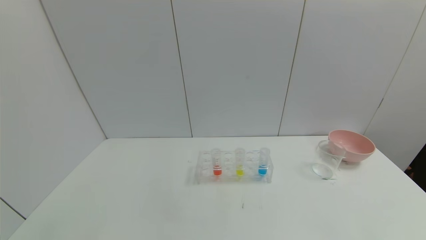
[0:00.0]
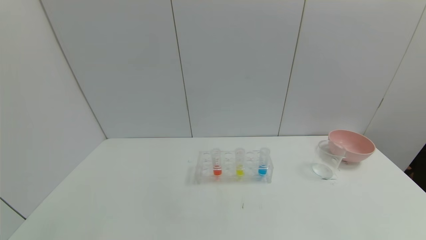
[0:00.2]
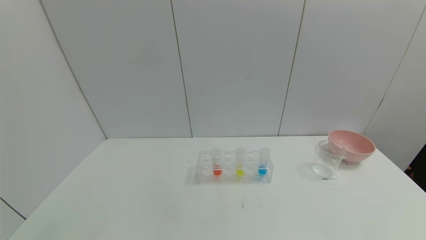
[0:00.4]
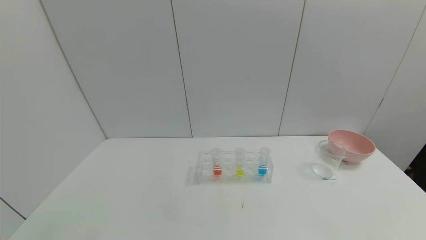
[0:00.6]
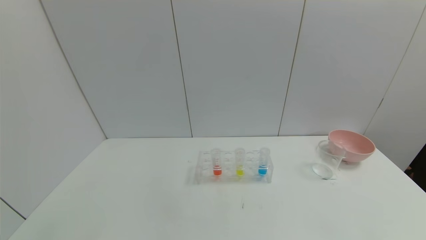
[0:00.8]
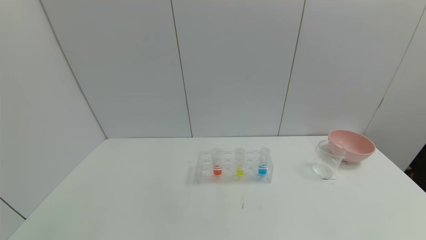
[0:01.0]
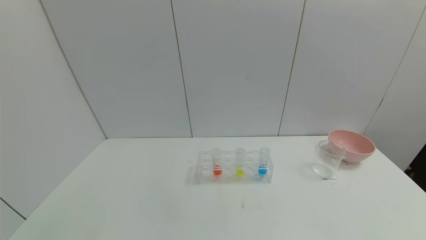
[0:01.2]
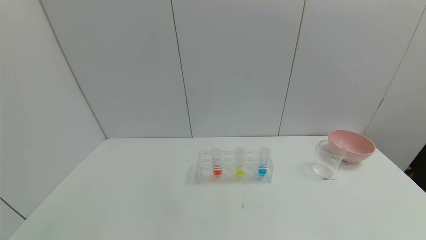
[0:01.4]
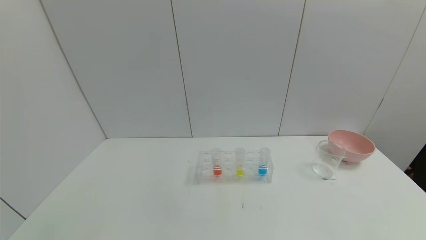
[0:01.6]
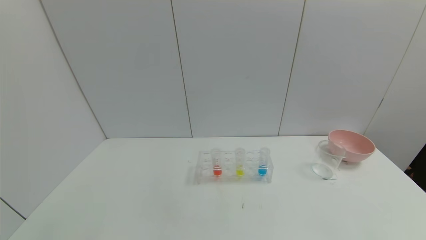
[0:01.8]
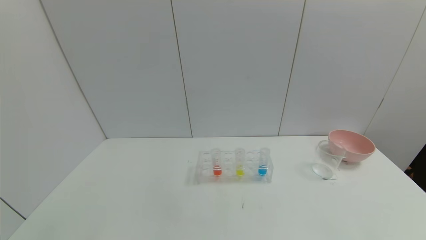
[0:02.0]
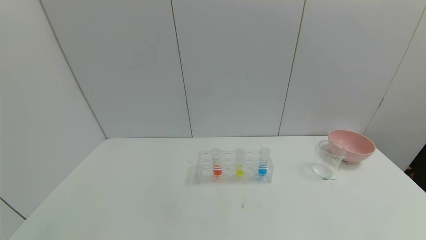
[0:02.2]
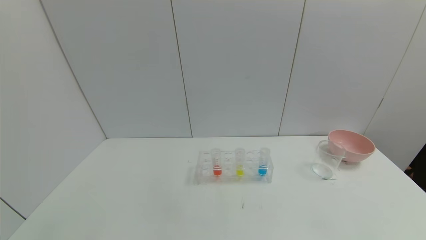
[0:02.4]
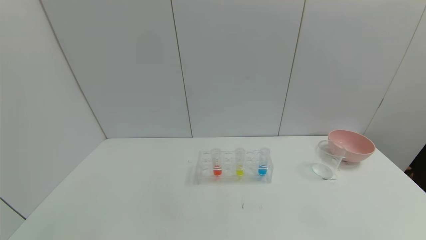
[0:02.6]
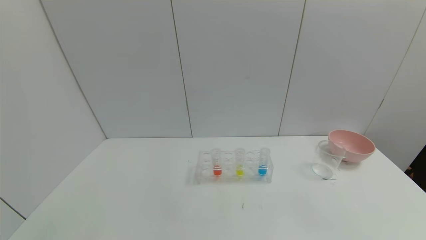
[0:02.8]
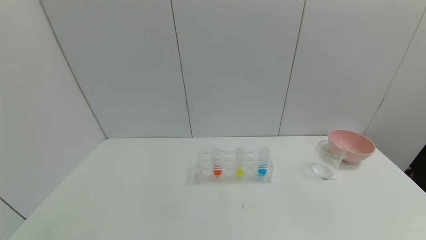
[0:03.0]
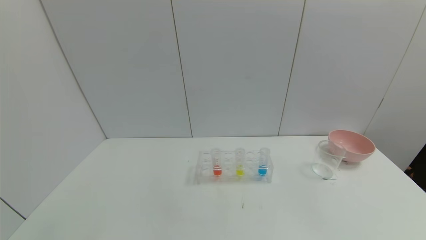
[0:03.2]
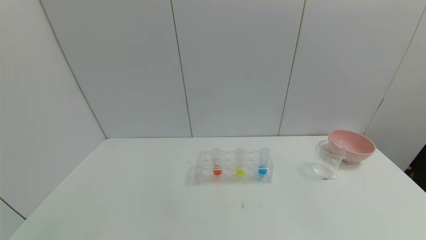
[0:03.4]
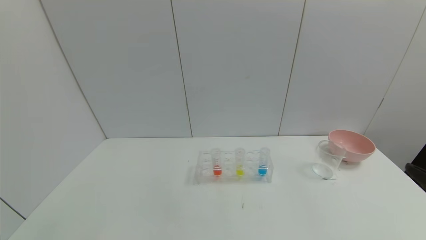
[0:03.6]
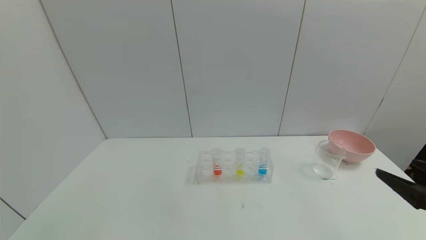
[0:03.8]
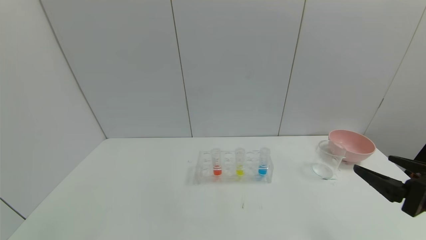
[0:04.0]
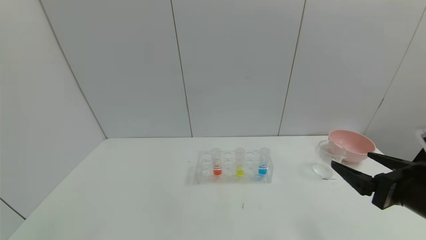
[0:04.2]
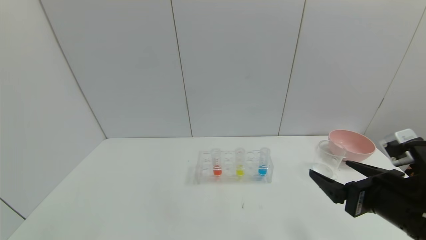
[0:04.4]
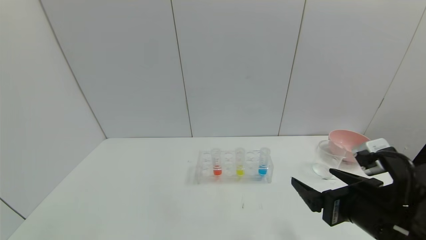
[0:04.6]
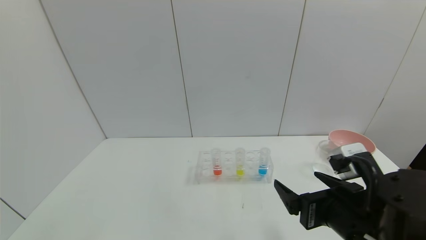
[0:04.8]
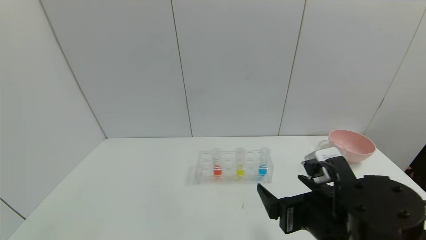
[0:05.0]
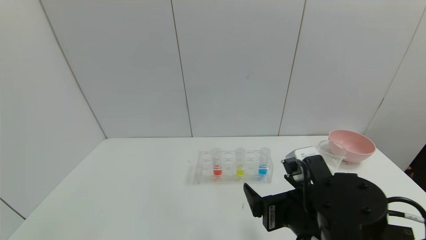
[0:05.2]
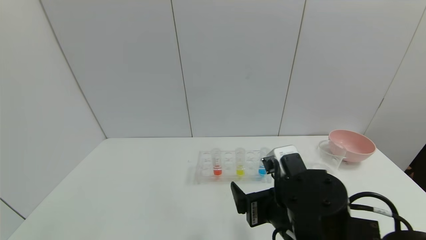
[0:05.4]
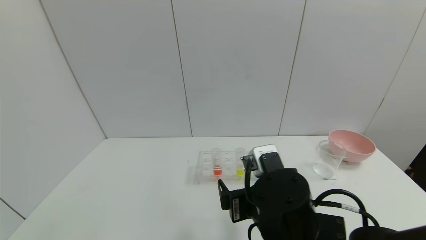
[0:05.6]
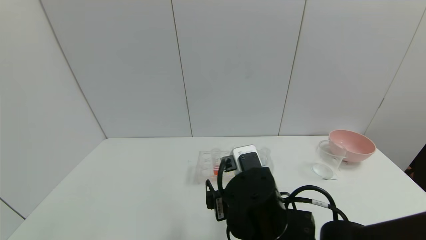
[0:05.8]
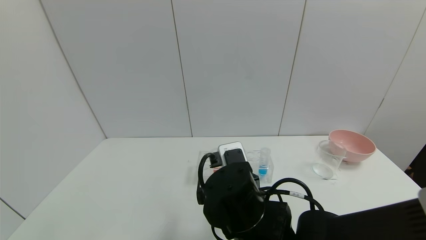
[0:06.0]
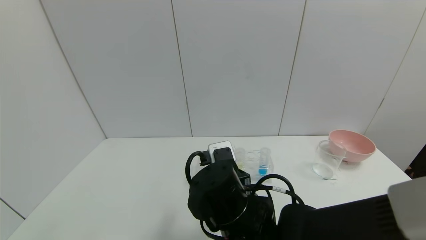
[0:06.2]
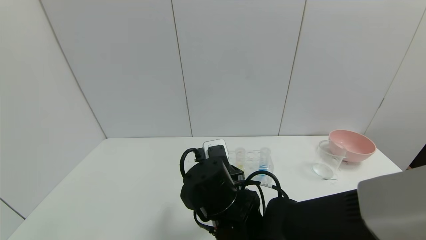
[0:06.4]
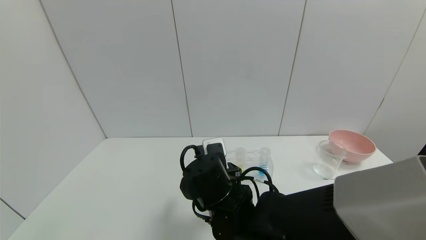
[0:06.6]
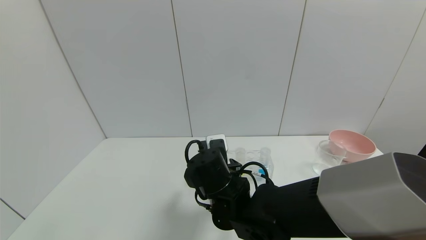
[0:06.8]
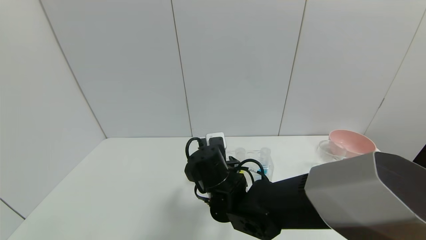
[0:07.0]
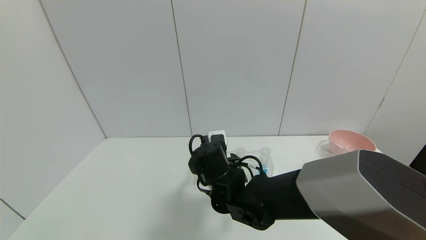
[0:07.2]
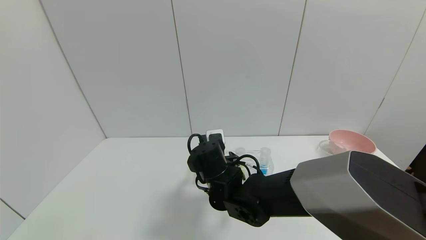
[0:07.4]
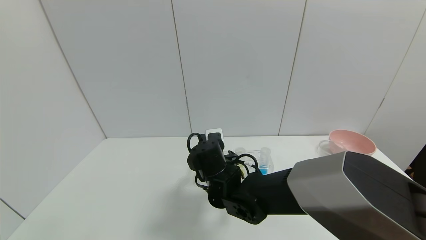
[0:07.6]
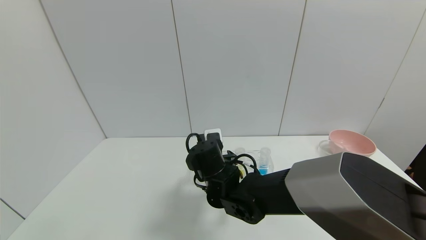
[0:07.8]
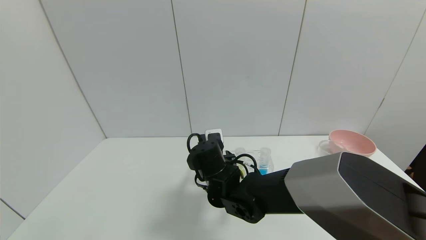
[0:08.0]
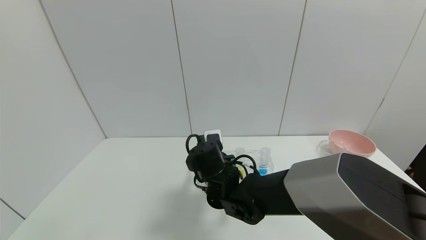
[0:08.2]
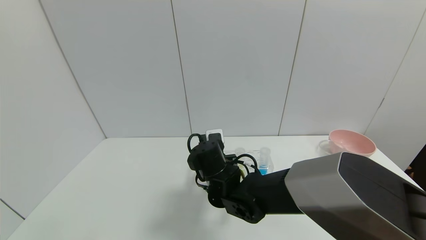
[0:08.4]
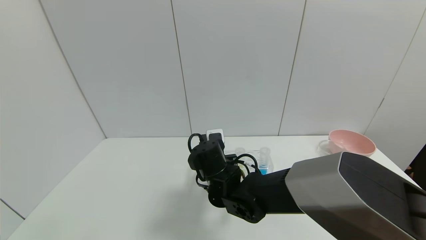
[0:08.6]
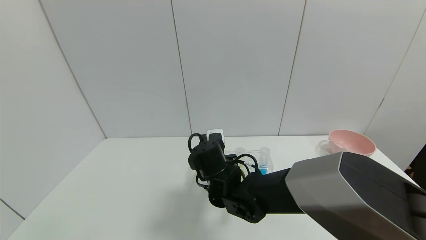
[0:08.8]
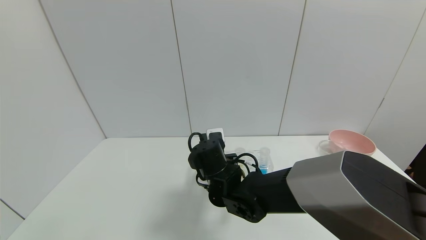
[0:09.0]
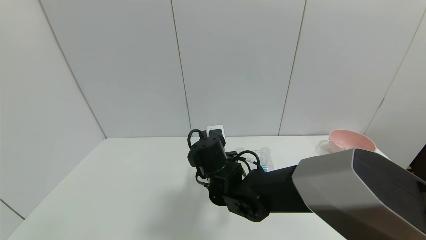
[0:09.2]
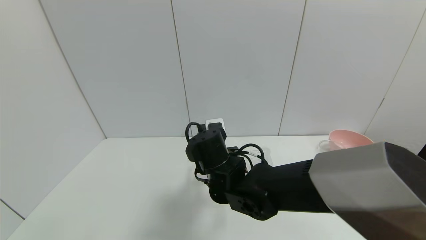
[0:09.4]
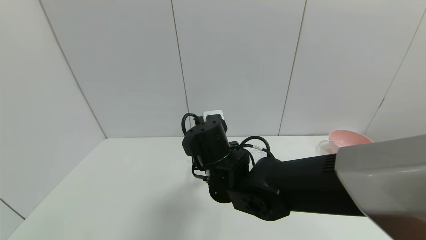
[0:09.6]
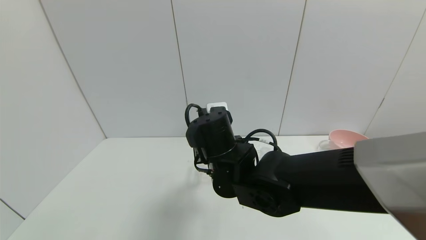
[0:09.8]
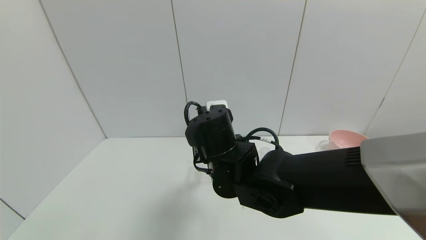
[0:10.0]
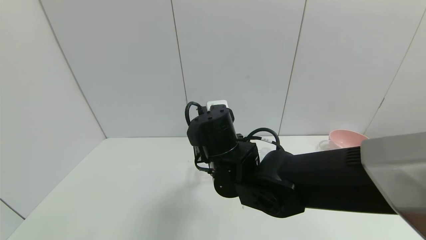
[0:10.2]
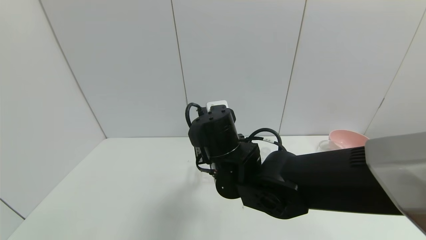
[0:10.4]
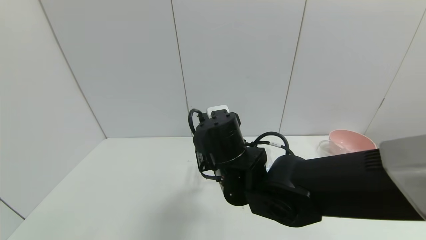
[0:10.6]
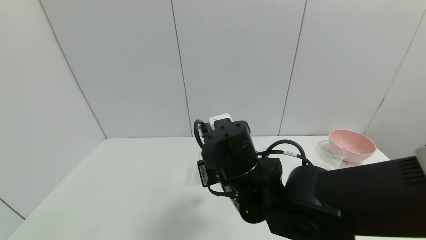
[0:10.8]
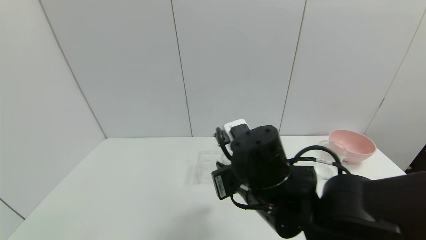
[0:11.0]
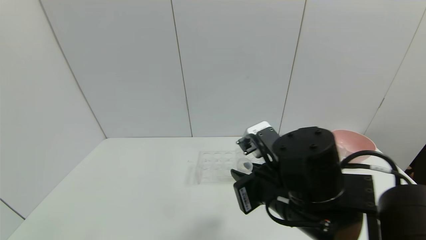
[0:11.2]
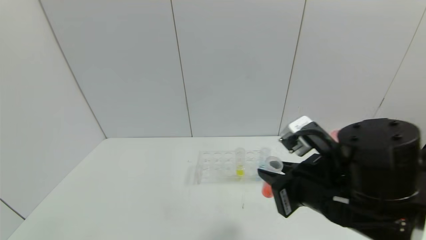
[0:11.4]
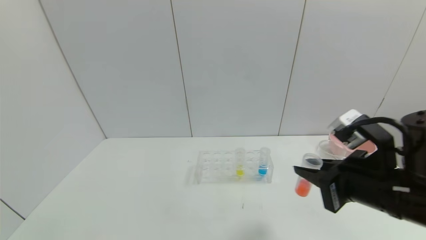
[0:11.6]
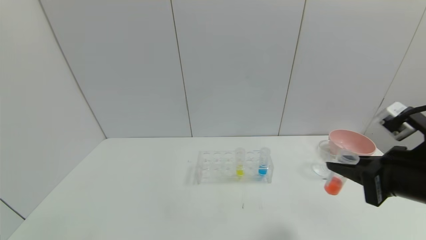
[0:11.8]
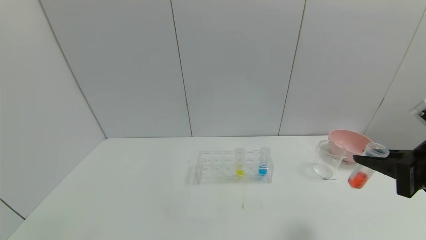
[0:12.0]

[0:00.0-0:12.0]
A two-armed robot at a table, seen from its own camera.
Task of the whole recording: pick up the test tube with red pigment and the test tube with blue pigment by grippers and pour them into the container.
Step, 0:00.0 to 0:08.4: Grasp the red reagent with the right gripper.
0:00.0 to 0:01.6: Both grippers stay about where they are.
0:03.0 to 0:04.4: The right gripper moves forward and to the left, some 20 cm.
0:04.4 to 0:06.0: The right gripper heads to the left, covering approximately 20 cm.
0:06.0 to 0:07.6: The right gripper moves forward, some 10 cm.
0:07.6 to 0:09.0: The right gripper closes.
0:09.0 to 0:10.4: The right gripper goes approximately 10 cm upward.
0:10.4 to 0:12.0: The right gripper heads to the right, covering some 30 cm.

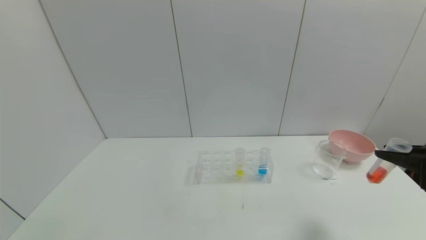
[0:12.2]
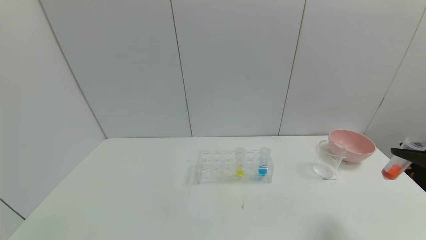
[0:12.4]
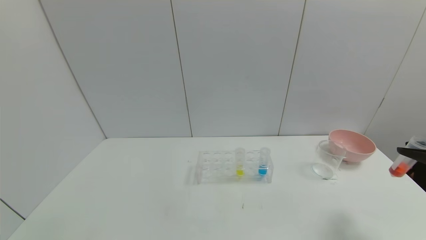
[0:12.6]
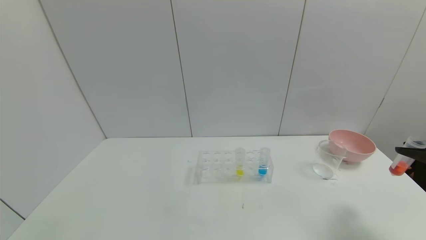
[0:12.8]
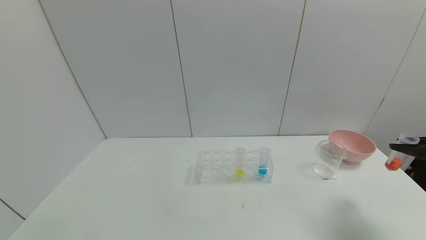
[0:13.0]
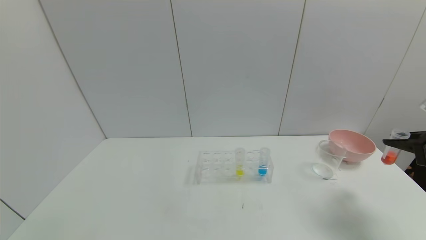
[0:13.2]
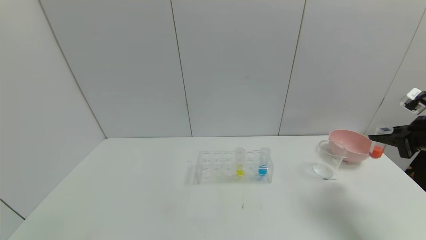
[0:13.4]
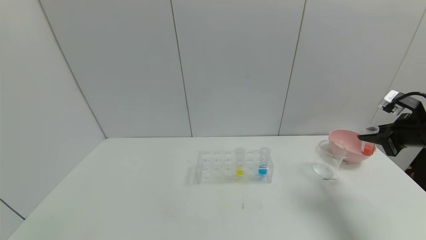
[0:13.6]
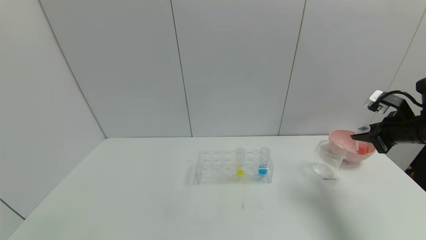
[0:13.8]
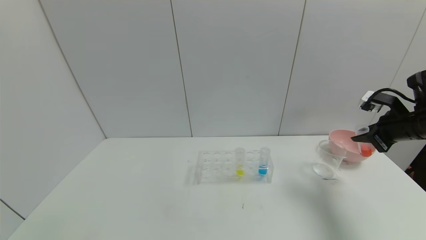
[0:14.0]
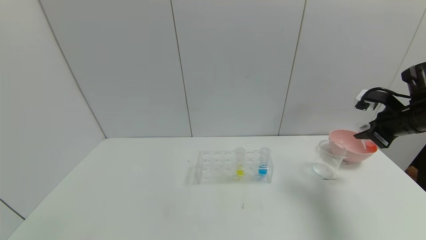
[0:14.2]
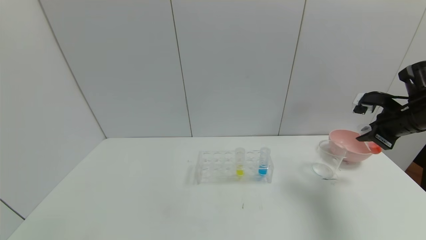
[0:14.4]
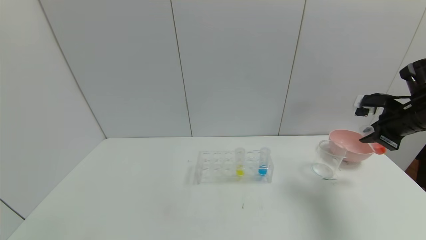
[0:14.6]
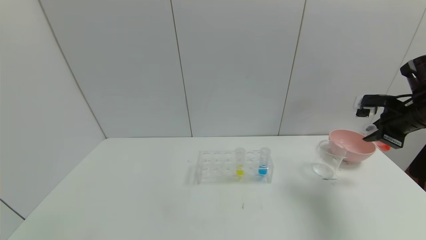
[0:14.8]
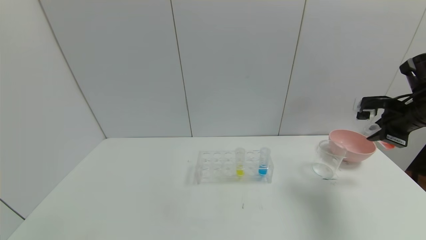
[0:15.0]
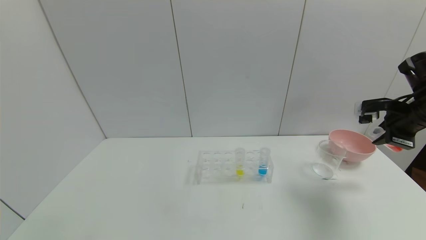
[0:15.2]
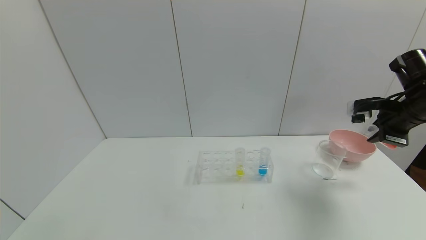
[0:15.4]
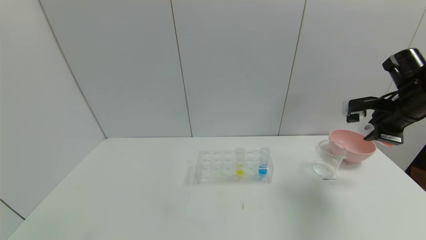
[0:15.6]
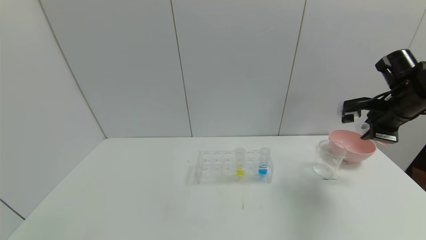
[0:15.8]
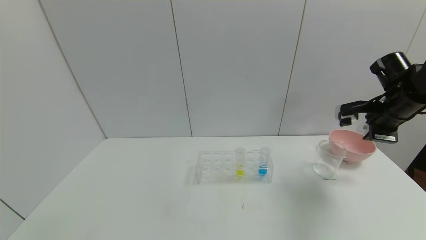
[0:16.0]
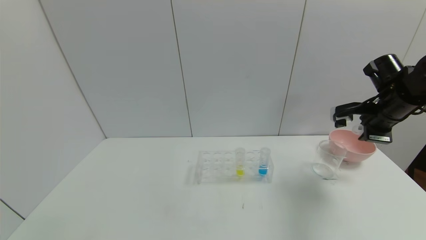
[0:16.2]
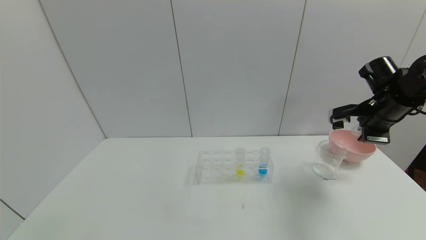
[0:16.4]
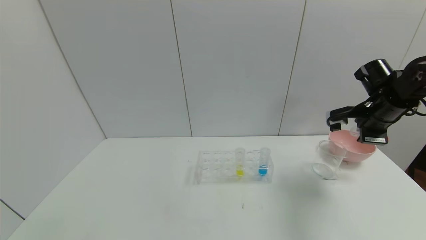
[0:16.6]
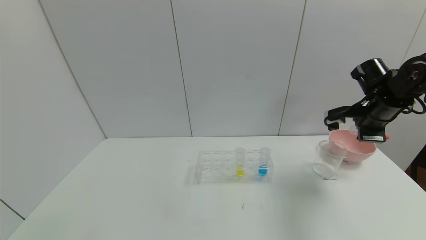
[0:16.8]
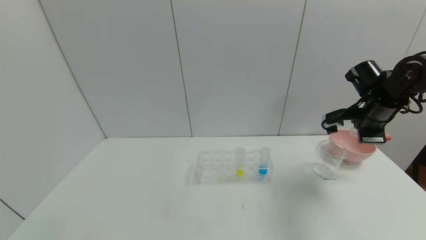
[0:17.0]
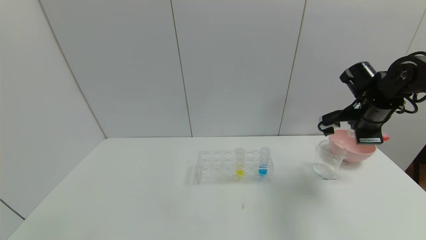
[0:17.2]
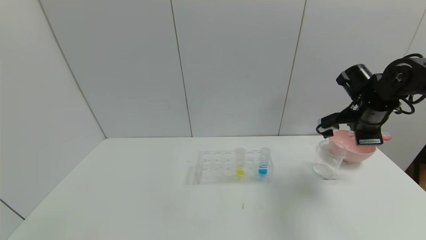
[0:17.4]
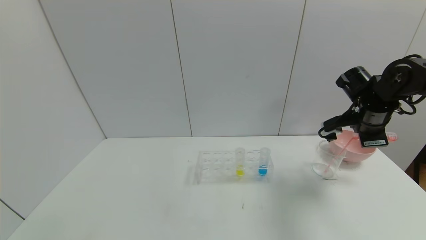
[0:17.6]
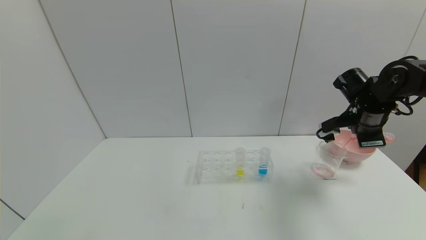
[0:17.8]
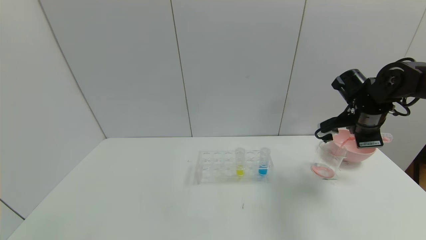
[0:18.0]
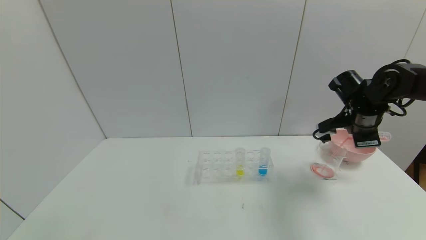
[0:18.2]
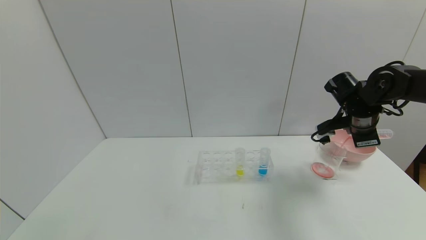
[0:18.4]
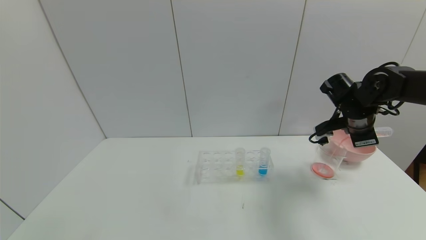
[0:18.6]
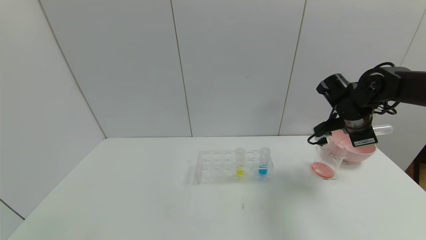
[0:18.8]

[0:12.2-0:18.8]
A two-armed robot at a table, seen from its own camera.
Task of the whole recording: pick up the test tube with red pigment and the test tube with blue pigment by grippers and pour them into the container.
0:12.2 to 0:13.8: The right gripper goes approximately 15 cm forward.
0:13.8 to 0:15.4: The right gripper moves approximately 5 cm.
0:15.4 to 0:17.2: The right gripper shifts by about 5 cm.
